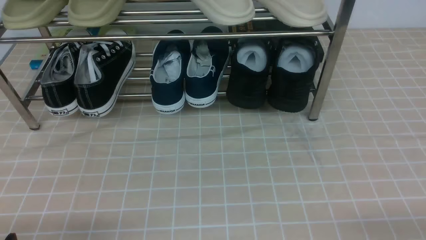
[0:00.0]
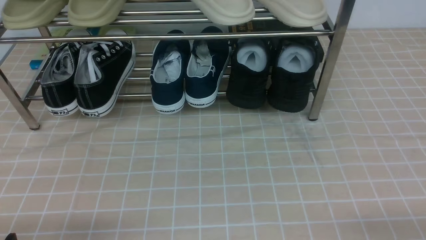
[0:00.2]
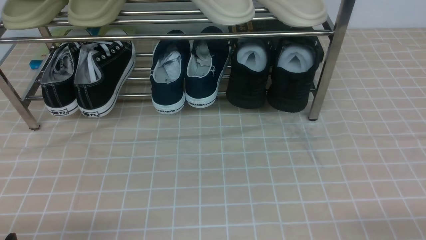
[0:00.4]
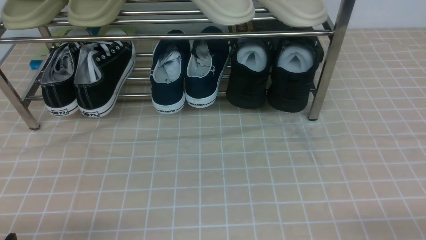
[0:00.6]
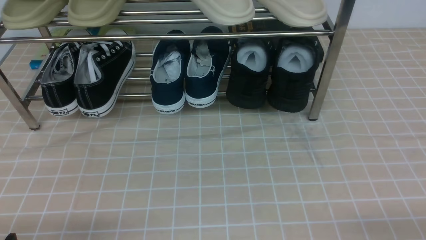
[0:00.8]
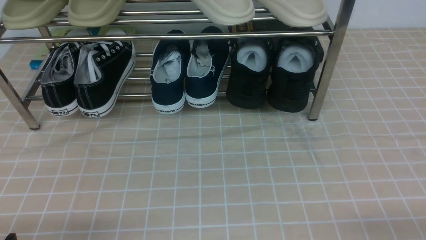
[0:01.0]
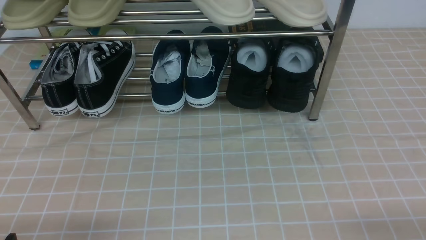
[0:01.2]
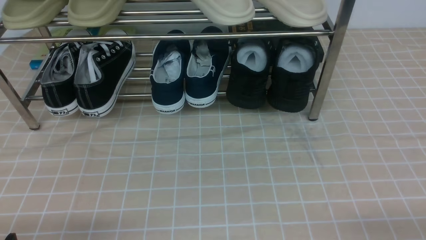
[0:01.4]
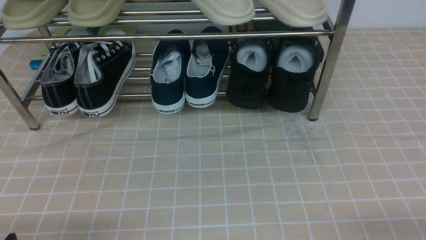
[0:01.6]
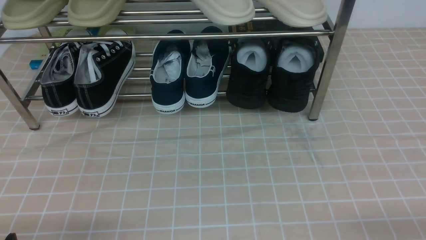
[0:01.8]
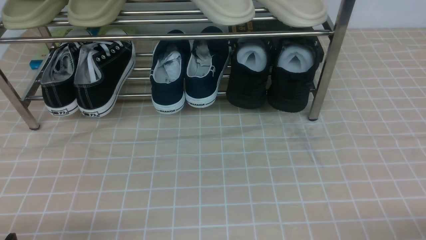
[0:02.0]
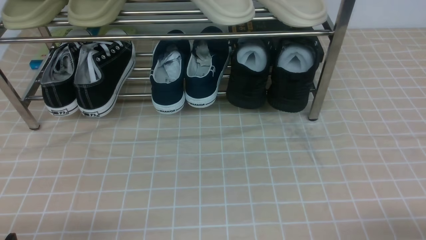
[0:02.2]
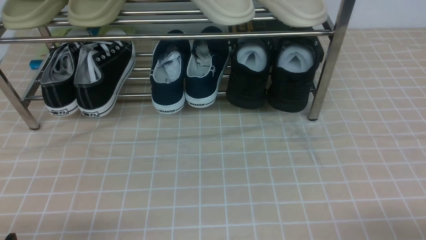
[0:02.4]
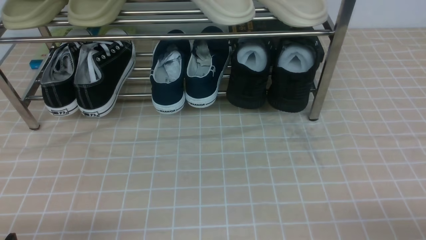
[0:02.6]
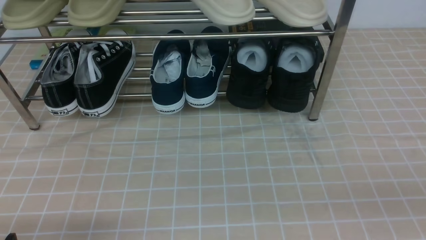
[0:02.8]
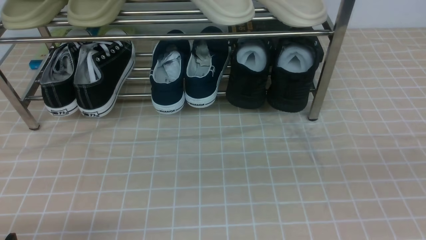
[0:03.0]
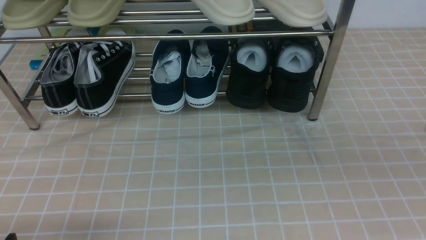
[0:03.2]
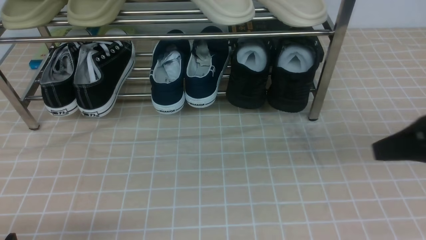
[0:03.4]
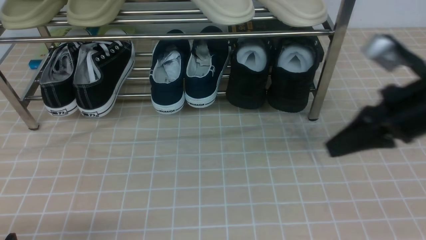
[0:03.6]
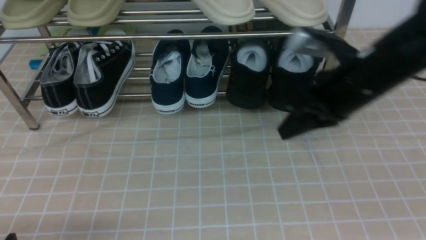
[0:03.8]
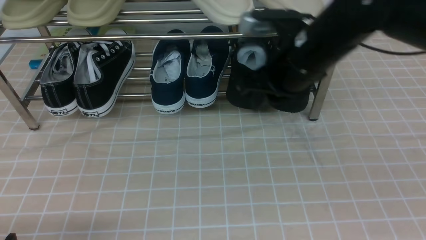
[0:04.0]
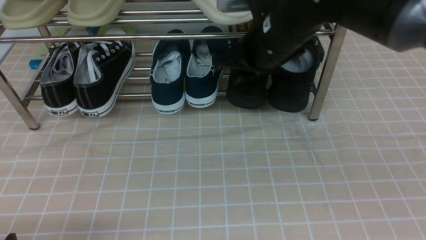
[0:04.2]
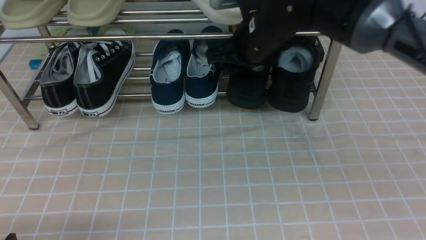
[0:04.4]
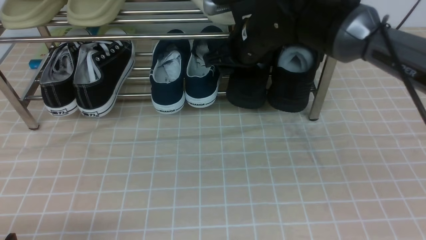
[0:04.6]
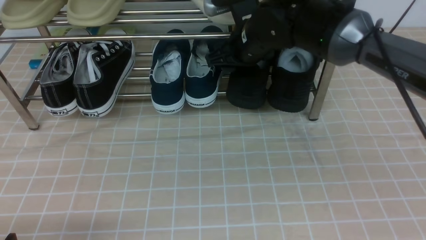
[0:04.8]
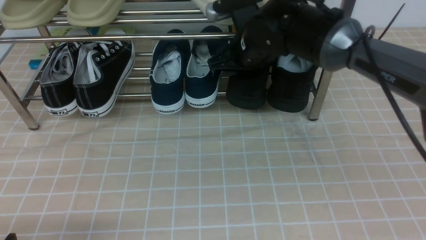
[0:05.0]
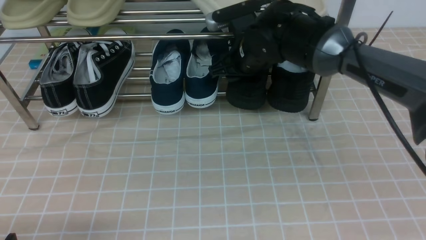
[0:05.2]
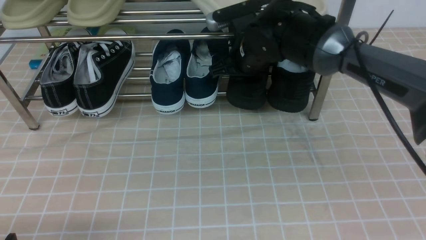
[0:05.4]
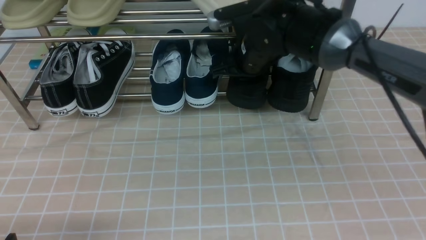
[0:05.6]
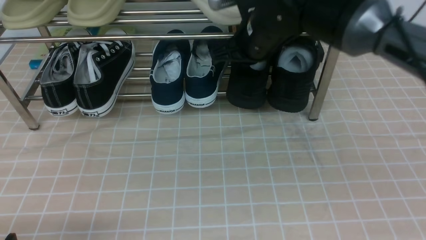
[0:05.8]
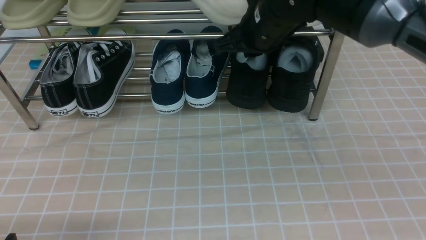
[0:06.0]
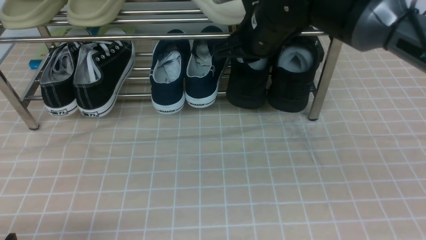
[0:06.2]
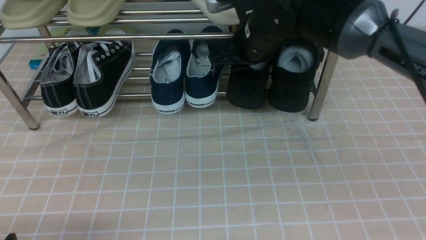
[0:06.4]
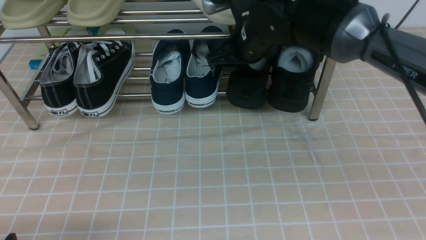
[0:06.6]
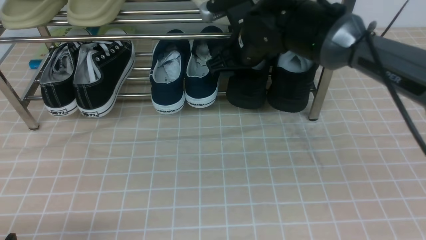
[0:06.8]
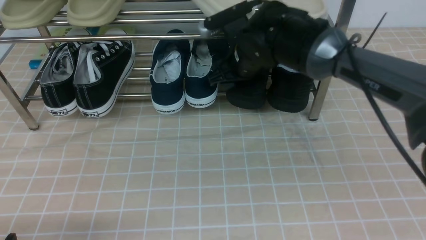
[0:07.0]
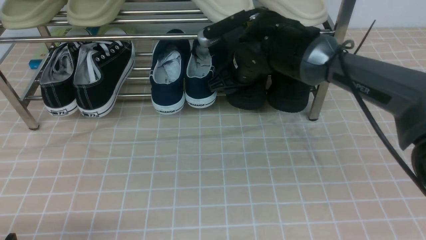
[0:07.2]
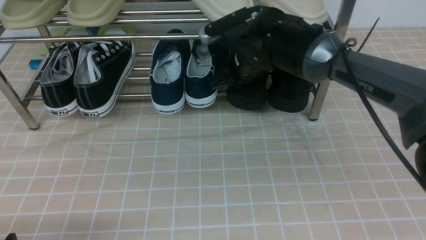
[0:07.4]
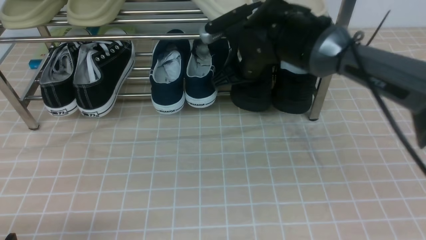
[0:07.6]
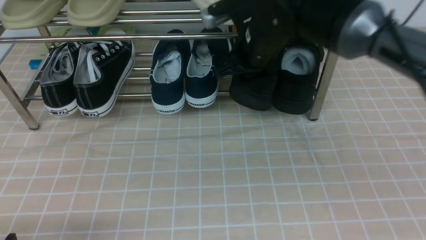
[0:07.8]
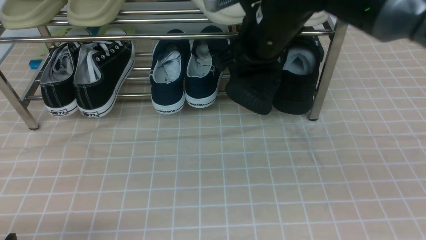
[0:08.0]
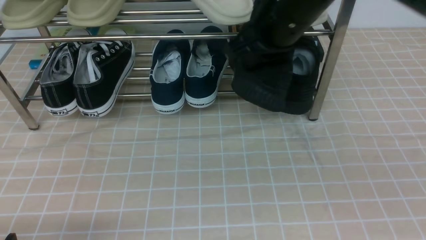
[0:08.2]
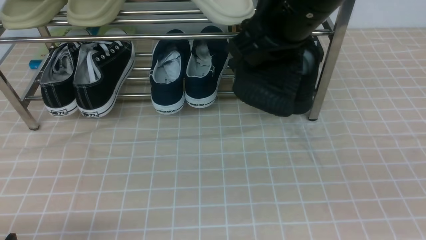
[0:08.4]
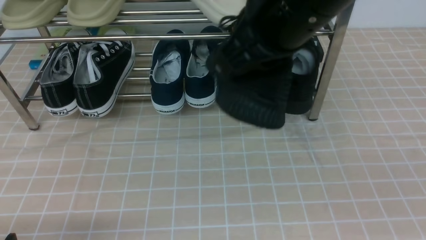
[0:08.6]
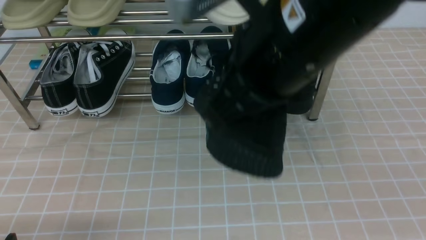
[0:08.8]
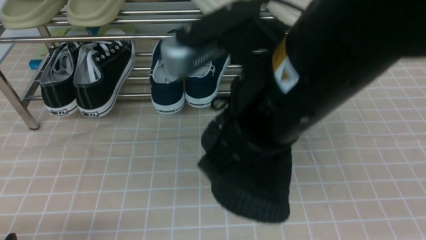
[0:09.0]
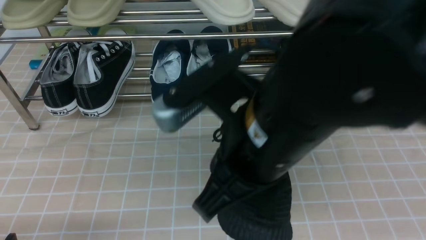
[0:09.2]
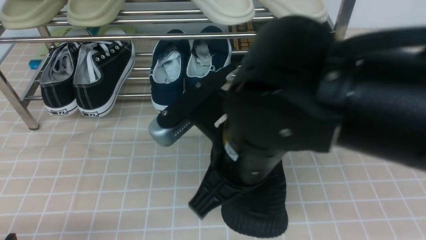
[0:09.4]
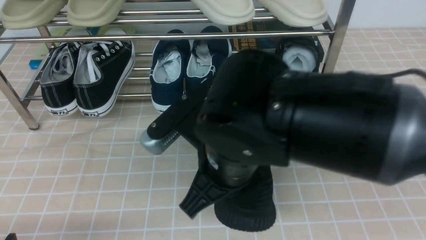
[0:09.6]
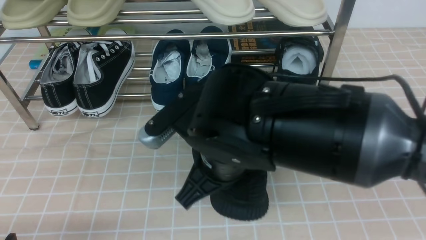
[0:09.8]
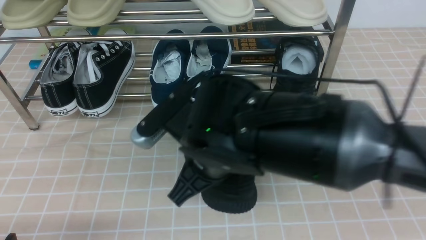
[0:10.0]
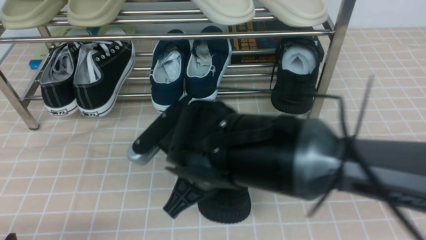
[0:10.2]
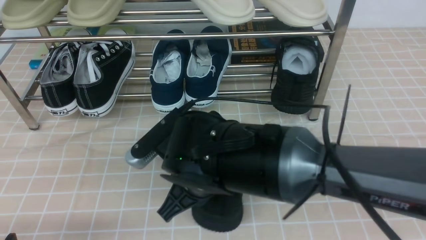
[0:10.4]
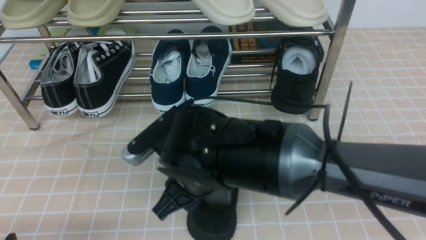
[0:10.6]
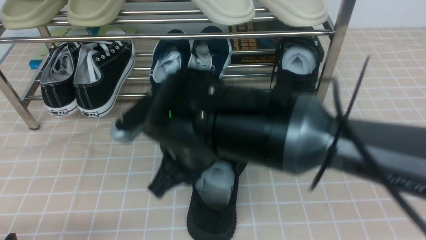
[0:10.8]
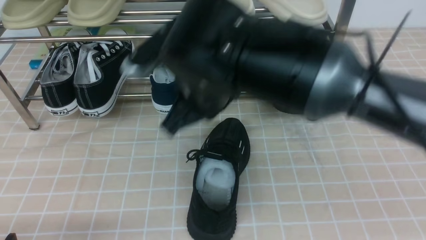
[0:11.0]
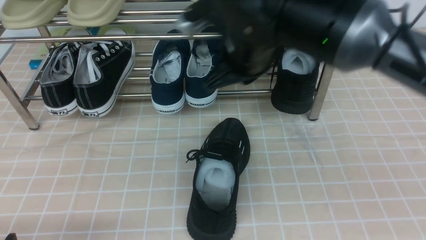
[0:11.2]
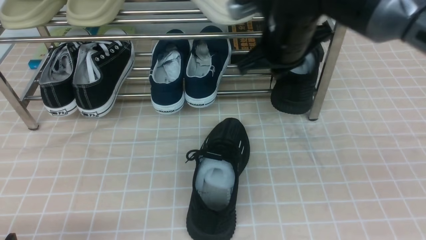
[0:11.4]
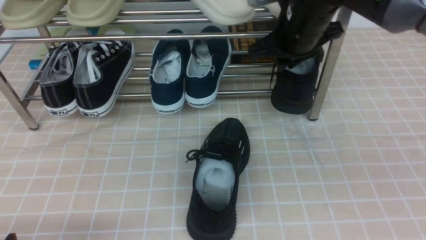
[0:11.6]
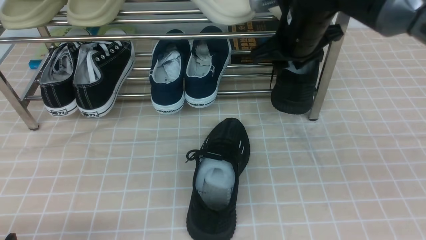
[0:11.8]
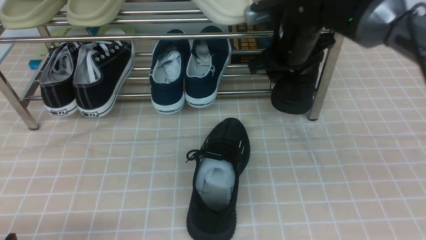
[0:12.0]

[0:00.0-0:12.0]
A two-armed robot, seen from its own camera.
Step, 0:00.0 to 0:04.4: use the right arm to clamp a shoe on the right side of the shoe rack.
Step, 0:04.8 to 0:10.6: use the right arm to take out the clamped shoe from the shoe rack and put it down.
0:03.0 to 0:04.4: The right gripper travels forward and to the left by roughly 40 cm, and opens.
0:04.4 to 0:06.0: The right gripper closes up.
0:06.0 to 0:07.6: The right gripper heads downward, covering about 5 cm, and opens, then closes again.
0:07.6 to 0:09.0: The right gripper is displaced backward and upward by about 25 cm.
0:09.0 to 0:10.4: The right gripper heads downward and to the left, covering some 20 cm.
0:10.4 to 0:12.0: The right gripper heads forward and to the right, covering approximately 25 cm, and opens up.

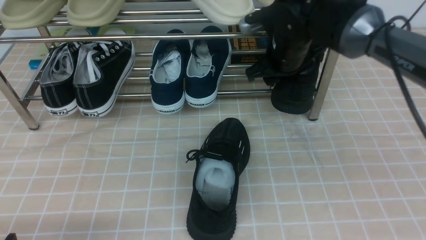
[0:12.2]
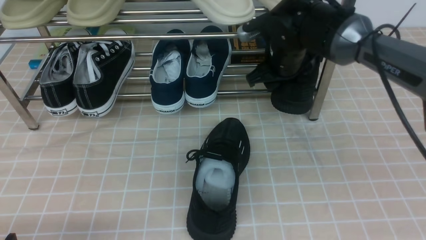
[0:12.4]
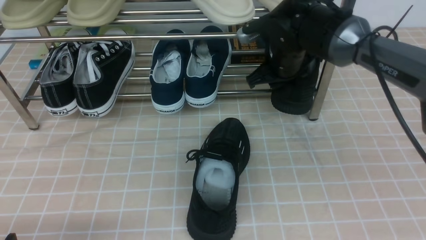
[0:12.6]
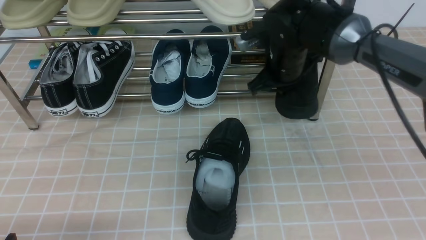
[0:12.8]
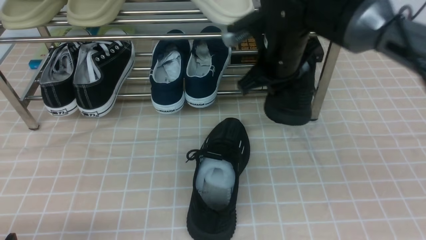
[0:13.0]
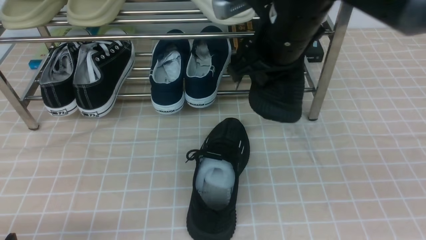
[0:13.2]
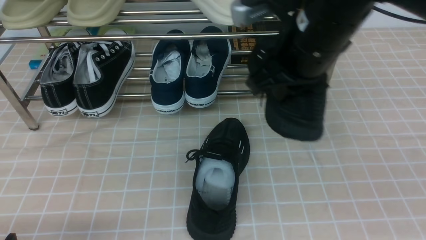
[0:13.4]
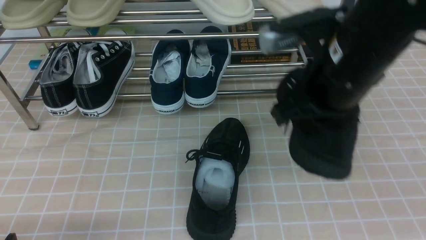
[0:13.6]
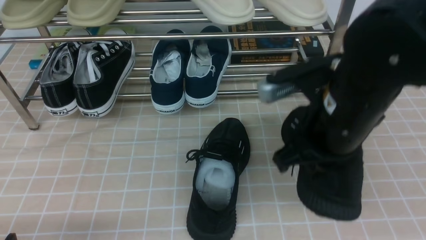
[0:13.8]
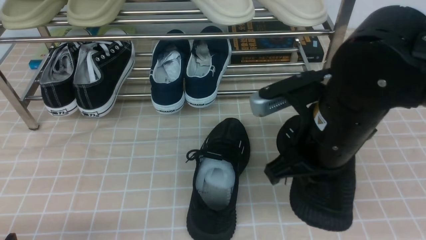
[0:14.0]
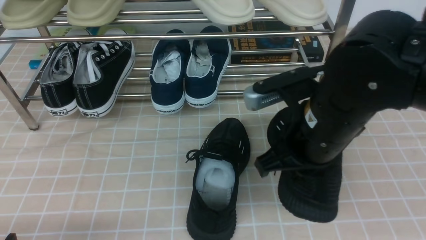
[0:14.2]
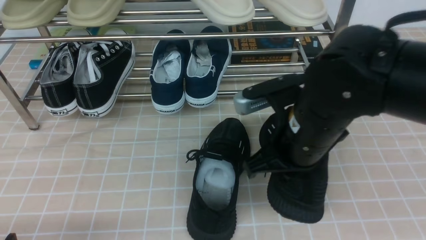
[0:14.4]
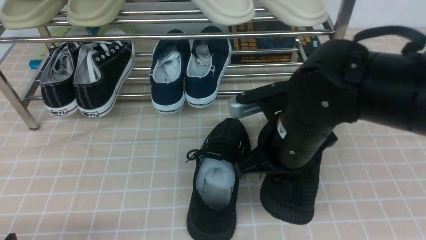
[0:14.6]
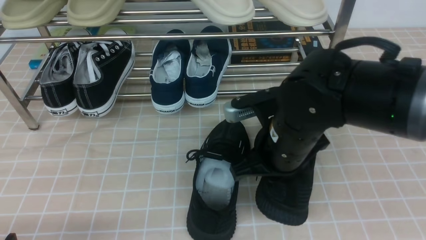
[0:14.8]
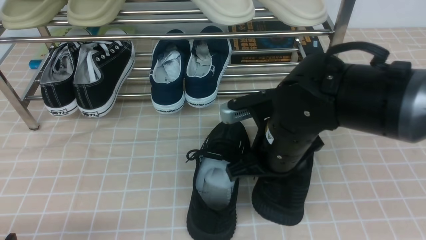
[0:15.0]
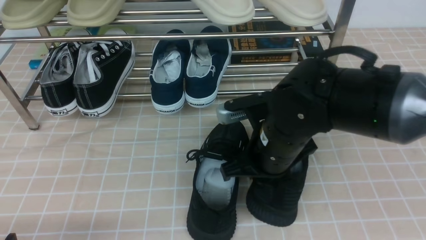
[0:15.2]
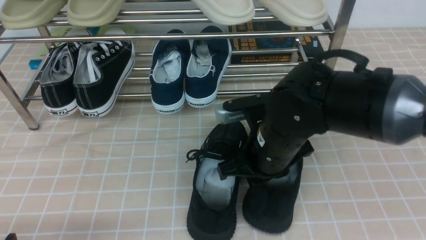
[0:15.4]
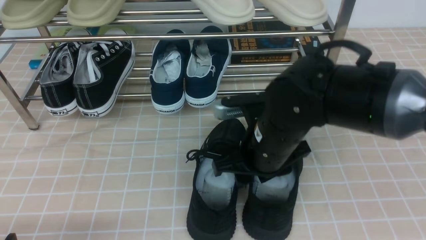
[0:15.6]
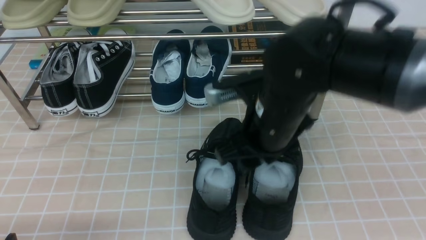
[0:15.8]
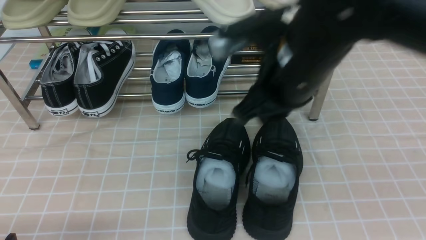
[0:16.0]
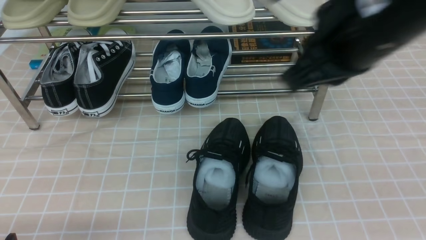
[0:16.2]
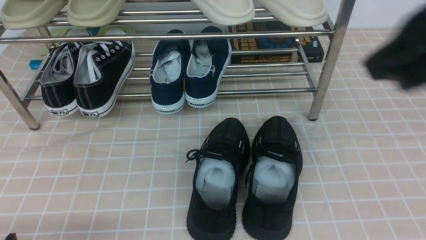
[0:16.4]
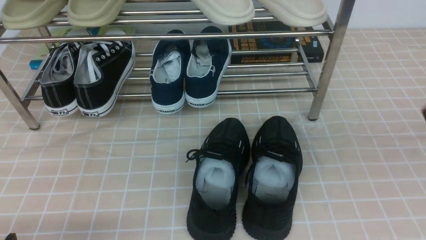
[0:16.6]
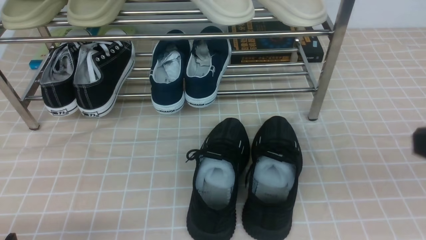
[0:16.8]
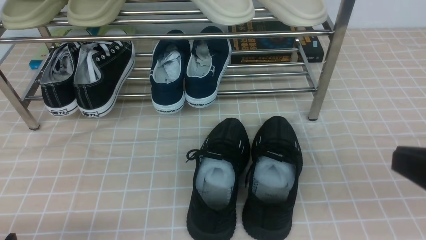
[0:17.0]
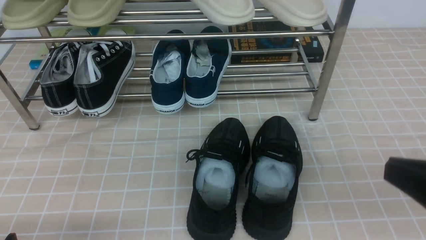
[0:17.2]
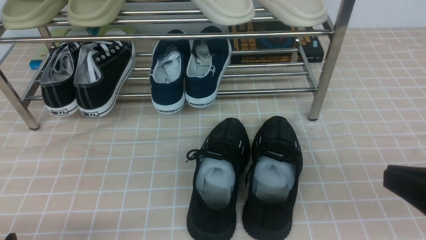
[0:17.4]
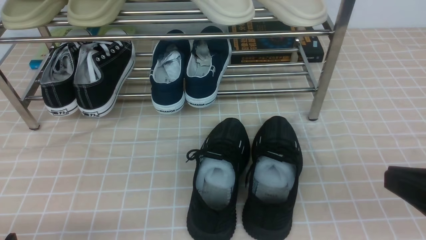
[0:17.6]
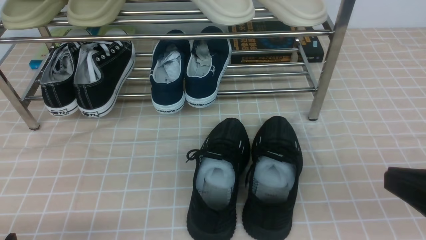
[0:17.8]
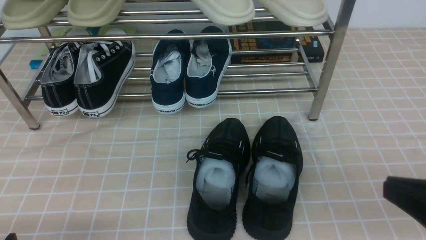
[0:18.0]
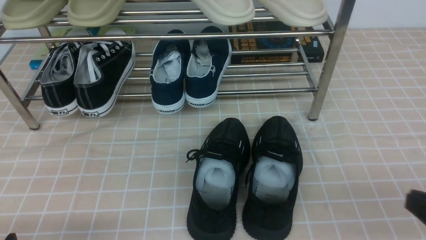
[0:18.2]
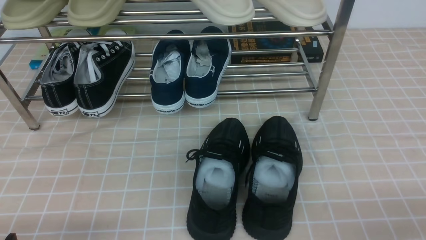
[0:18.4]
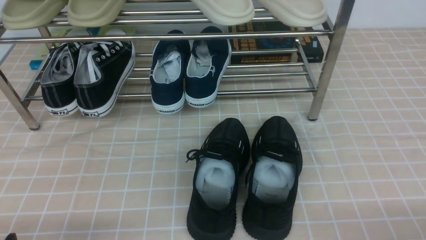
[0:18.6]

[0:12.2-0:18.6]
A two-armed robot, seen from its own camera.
Step, 0:13.0 to 0:15.8: use the right arm to take out the clamped shoe from the shoe rack and put it down.
0:12.2 to 0:13.8: The right gripper shifts approximately 20 cm backward, and closes its fingers.
0:13.8 to 0:15.4: The right gripper goes approximately 10 cm downward and to the left.
0:15.4 to 0:17.0: The right gripper heads to the right, backward and upward, covering roughly 30 cm, and opens, then closes once more.
0:17.0 to 0:18.6: The right gripper shifts roughly 15 cm downward and to the right.
